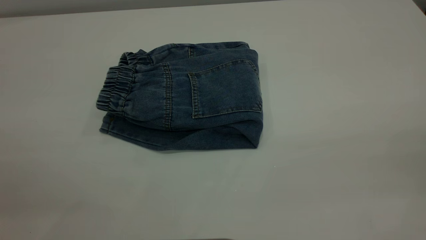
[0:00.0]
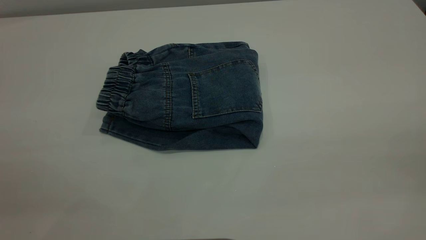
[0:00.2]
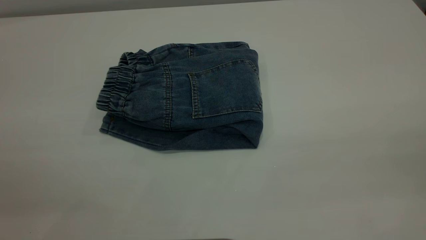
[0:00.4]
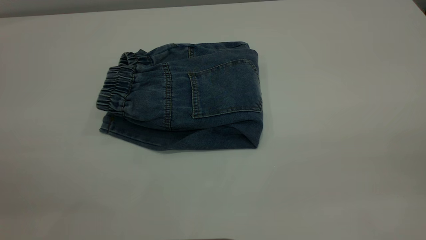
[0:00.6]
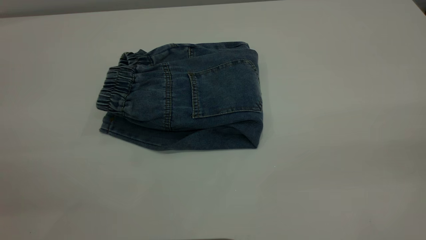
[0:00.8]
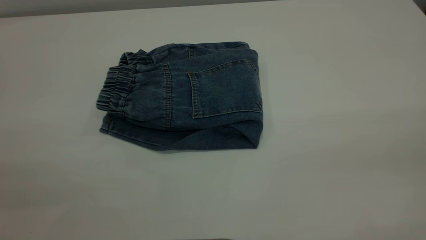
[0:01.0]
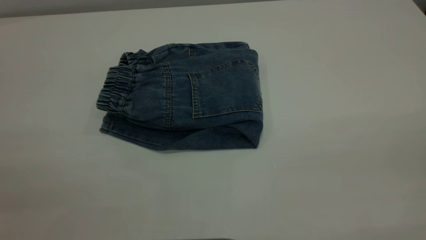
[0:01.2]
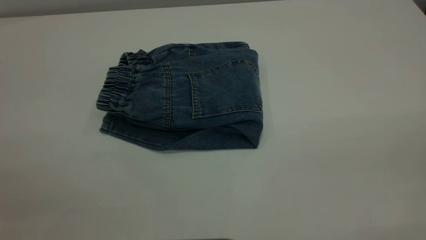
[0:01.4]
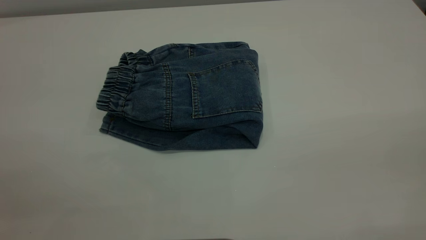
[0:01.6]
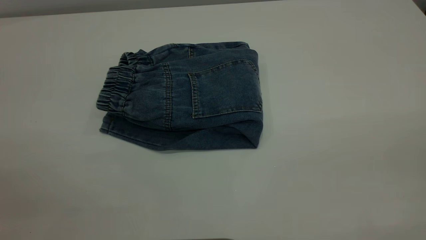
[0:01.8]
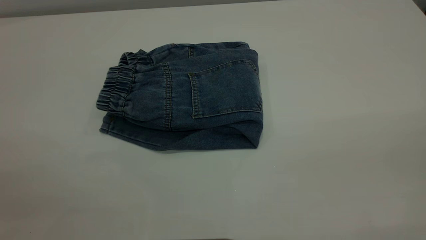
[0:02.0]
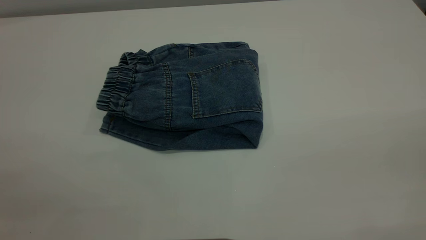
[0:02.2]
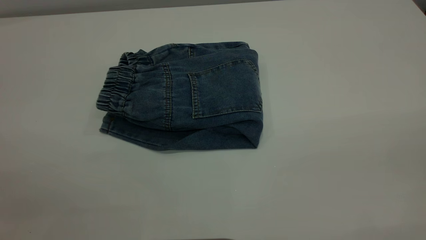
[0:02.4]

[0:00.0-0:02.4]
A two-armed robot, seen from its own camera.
0:01.2 to 0:02.4: Both grippers stay put.
